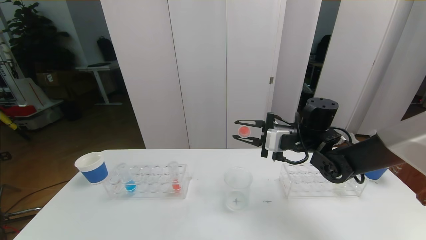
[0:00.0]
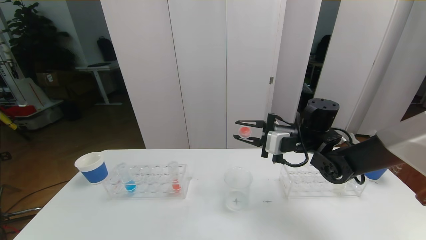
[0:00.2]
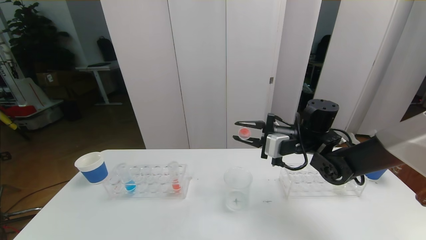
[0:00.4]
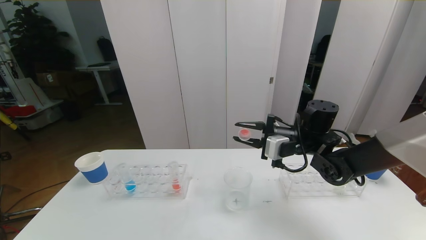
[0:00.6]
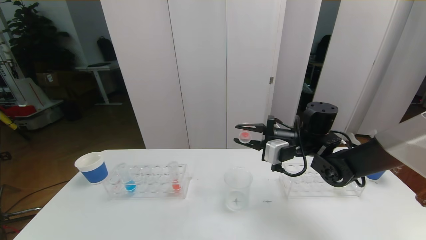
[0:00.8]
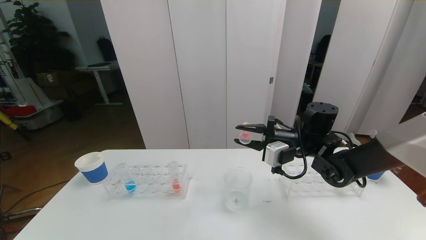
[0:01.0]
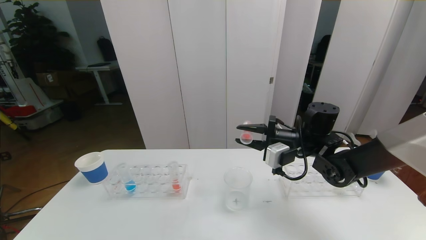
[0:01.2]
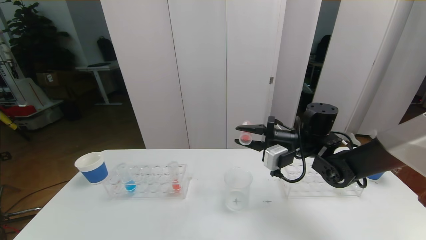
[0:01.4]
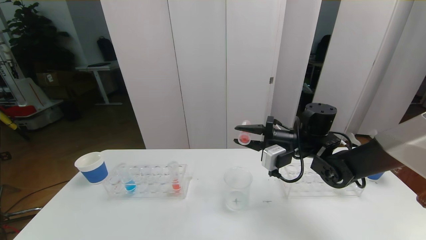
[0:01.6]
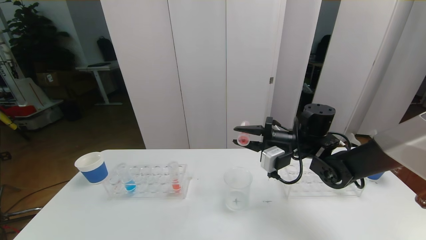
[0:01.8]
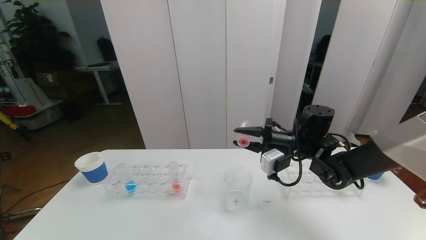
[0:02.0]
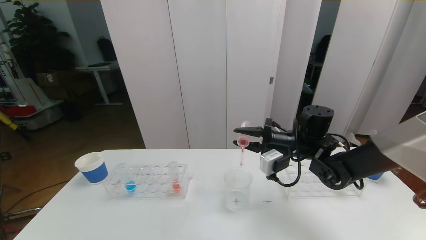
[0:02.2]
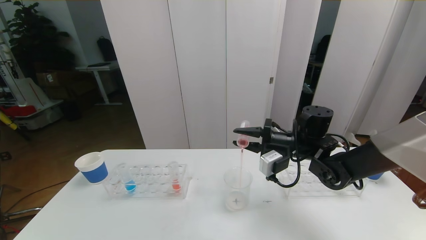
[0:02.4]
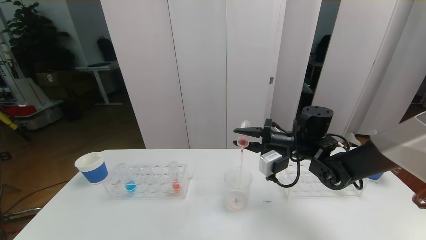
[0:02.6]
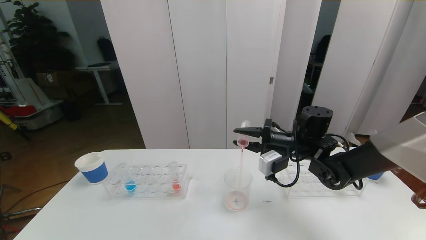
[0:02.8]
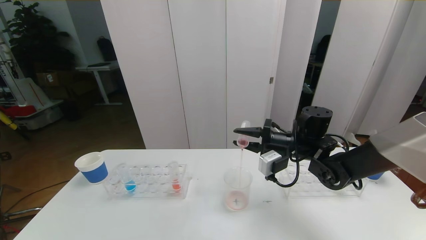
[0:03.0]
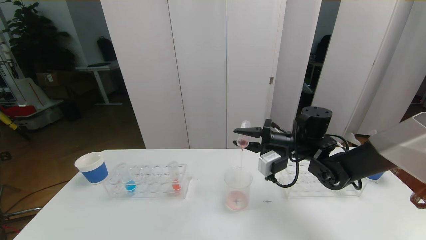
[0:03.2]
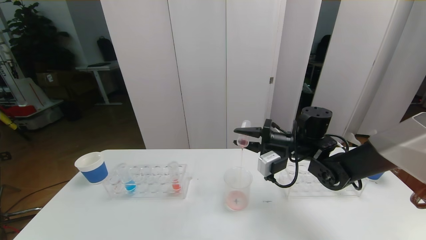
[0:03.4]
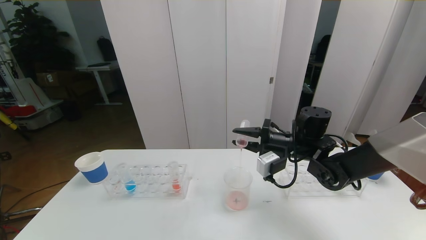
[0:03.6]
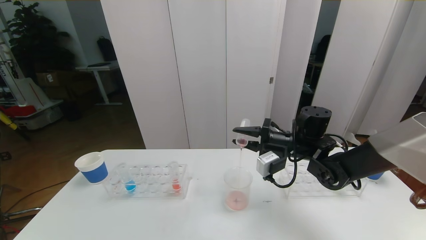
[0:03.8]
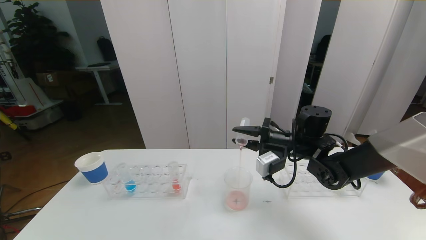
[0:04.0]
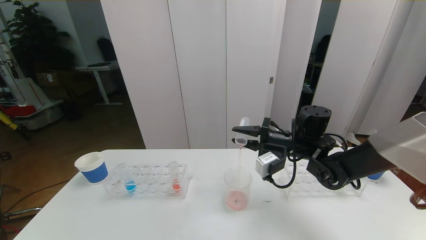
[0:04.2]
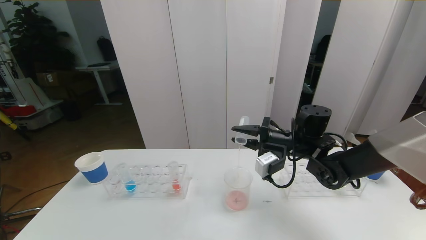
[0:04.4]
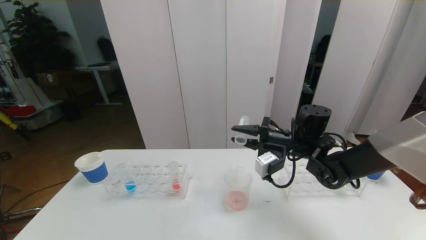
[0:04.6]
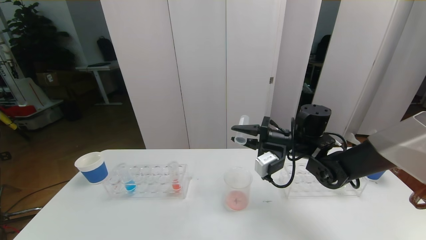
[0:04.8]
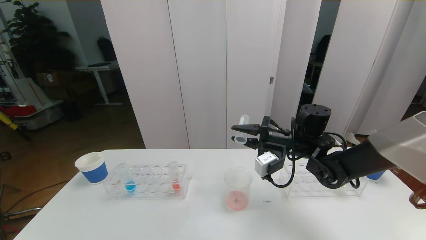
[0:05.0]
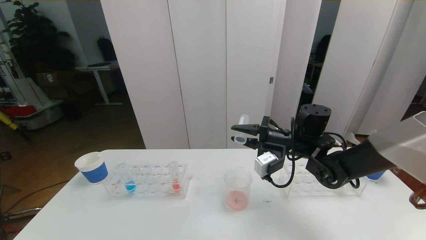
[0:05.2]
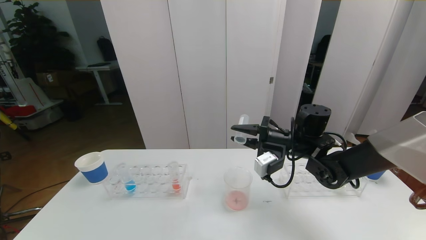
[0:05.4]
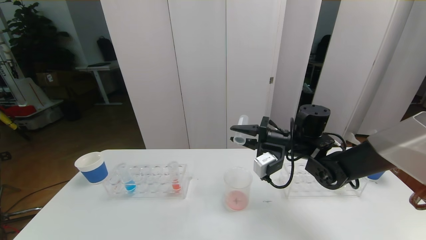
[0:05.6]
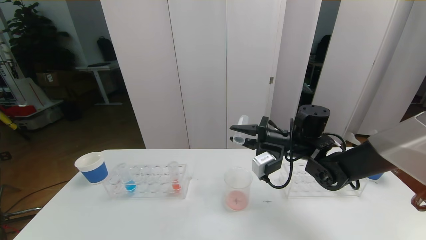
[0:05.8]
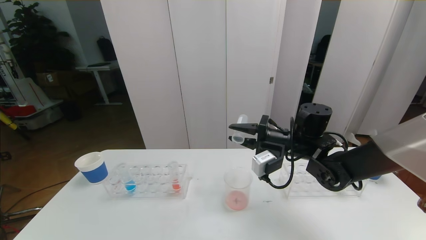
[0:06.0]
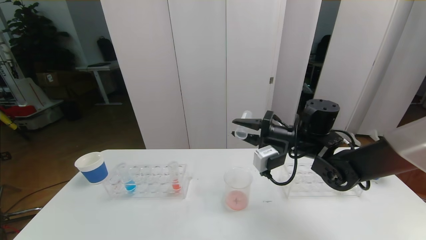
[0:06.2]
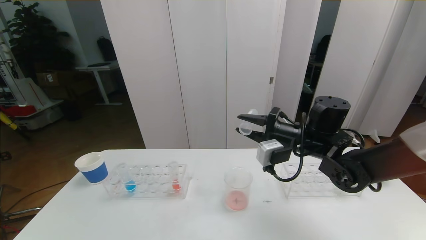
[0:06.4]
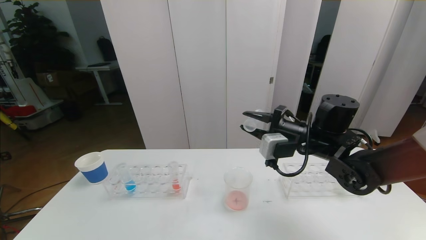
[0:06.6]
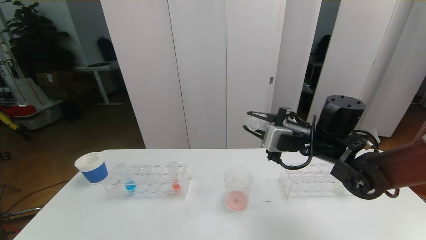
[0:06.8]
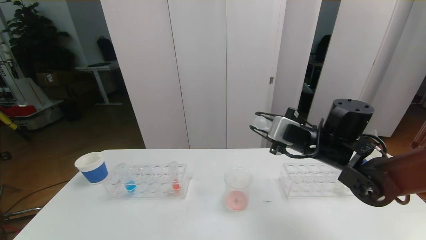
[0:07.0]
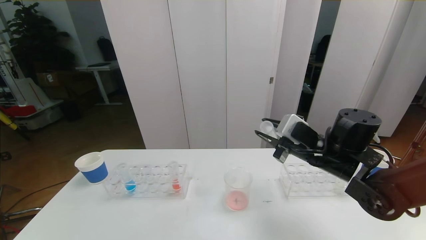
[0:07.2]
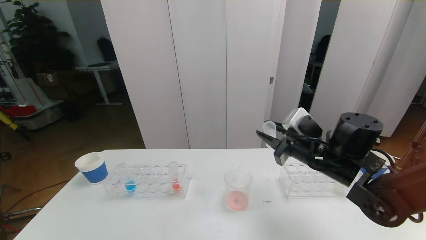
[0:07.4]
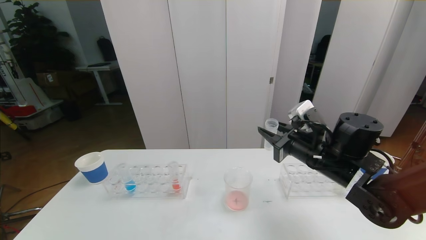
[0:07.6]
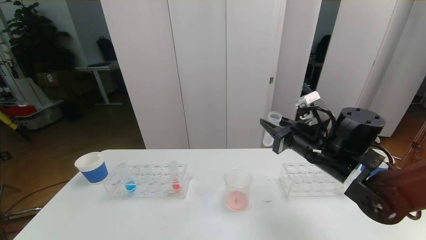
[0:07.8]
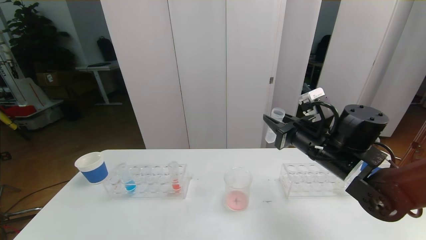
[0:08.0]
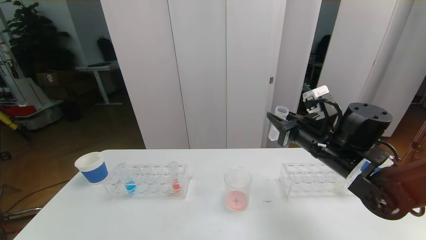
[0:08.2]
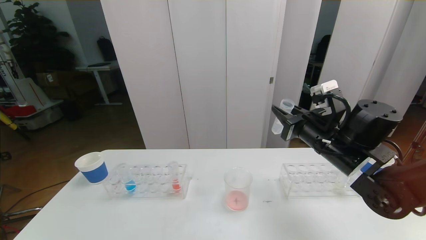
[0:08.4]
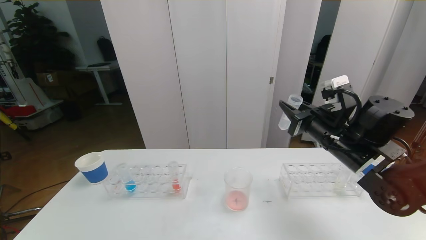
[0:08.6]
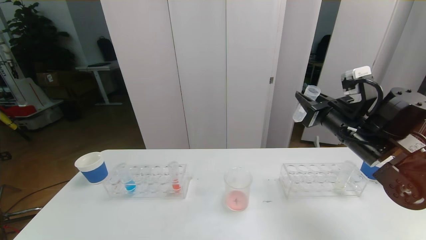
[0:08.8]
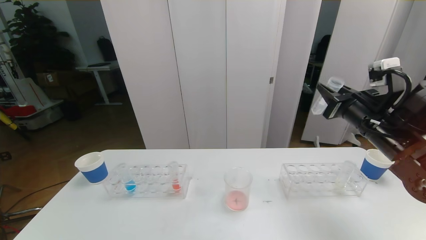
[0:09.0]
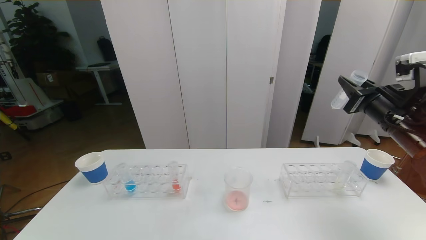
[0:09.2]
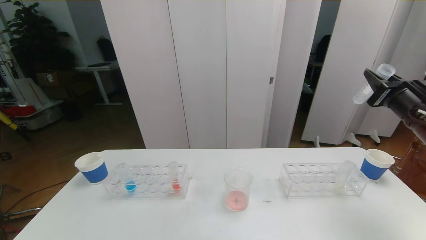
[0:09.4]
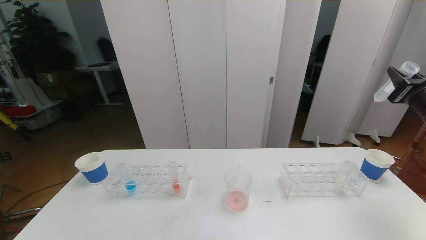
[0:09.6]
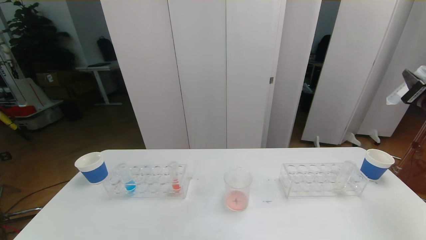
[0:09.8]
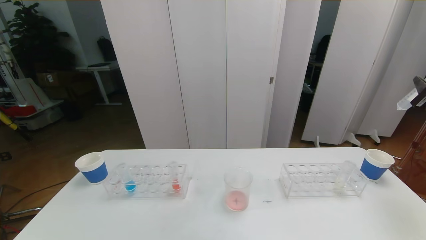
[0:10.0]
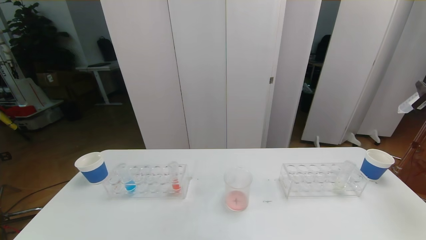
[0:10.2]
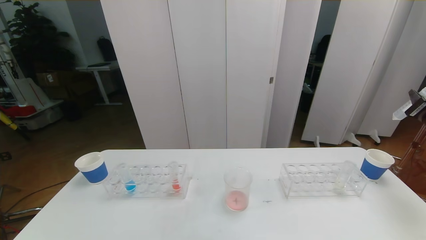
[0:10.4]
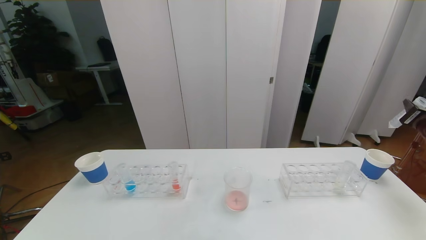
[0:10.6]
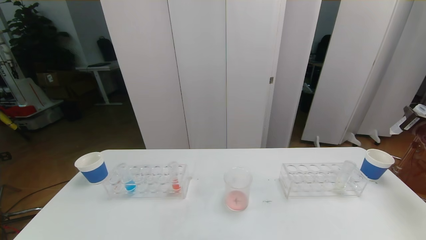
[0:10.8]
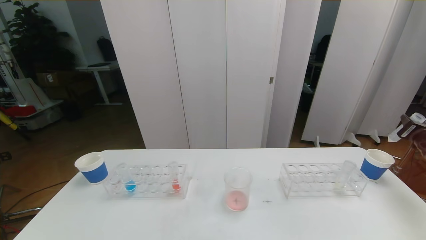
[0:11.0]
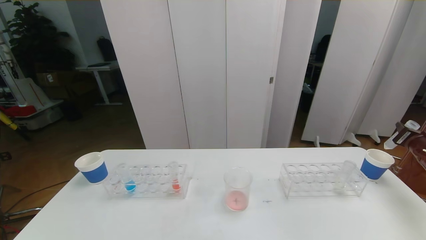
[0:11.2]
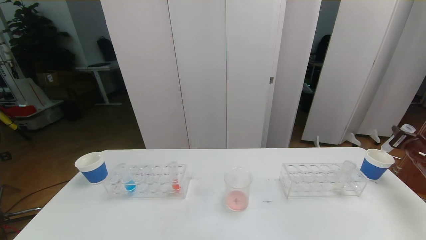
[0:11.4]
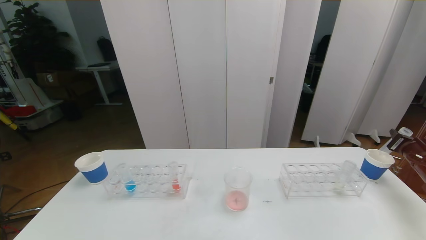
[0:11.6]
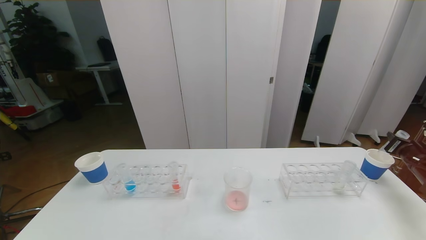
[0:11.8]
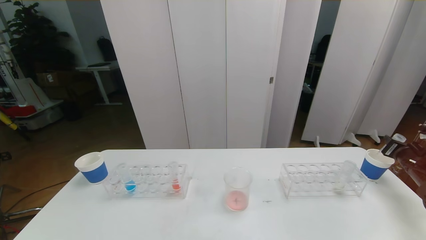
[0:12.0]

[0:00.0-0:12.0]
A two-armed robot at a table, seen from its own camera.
Task of the whole recording: pick up the test tube with red pigment the test tube with blue pigment and the test tube with white pigment by grippers and pour them into the beaker.
Step, 0:00.0 to 0:05.2: Pour the red reagent into the graduated cylinder with the right gripper.
0:00.0 to 0:01.6: There are only small adjustments of the grippers.
0:01.6 to 0:06.0: The grippers stay close to where they were, moving slightly.
0:06.0 to 0:07.6: The right gripper goes about 5 cm backward.
0:07.6 to 0:09.0: The right gripper is displaced to the right and upward by about 10 cm.
0:09.0 to 0:10.4: The right gripper moves to the right, some 20 cm.
0:10.4 to 0:12.0: The right gripper shifts roughly 10 cm downward.

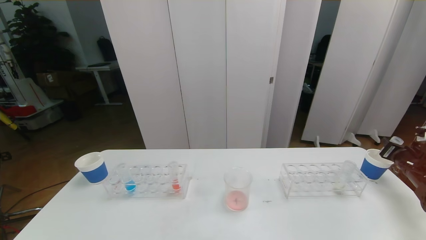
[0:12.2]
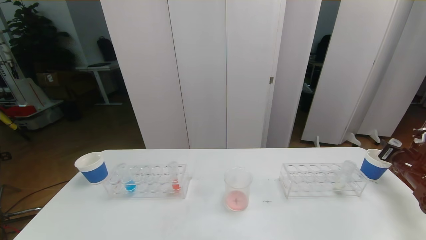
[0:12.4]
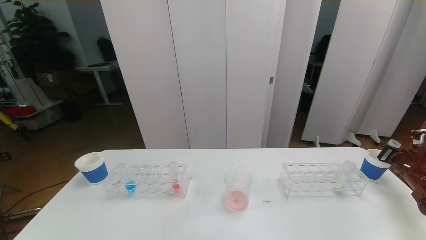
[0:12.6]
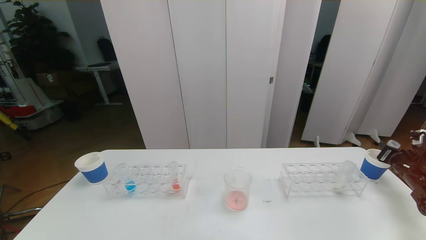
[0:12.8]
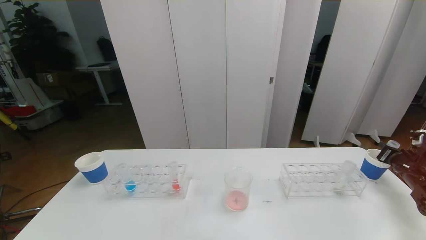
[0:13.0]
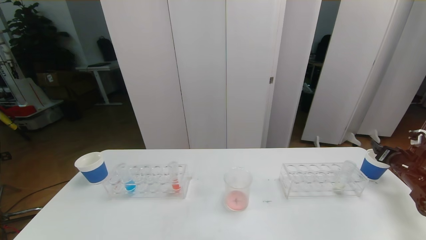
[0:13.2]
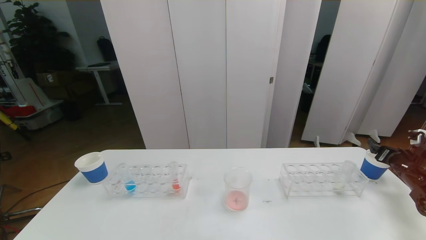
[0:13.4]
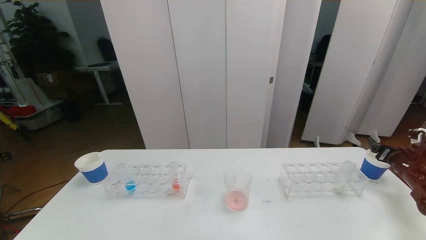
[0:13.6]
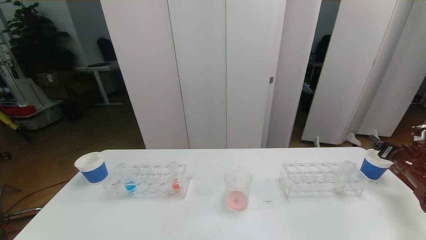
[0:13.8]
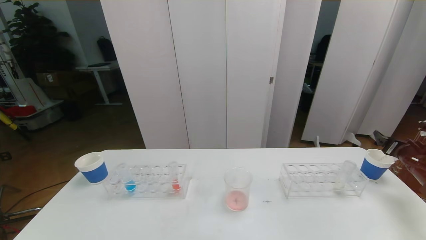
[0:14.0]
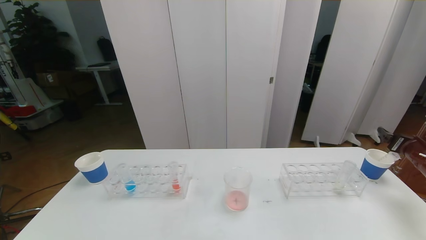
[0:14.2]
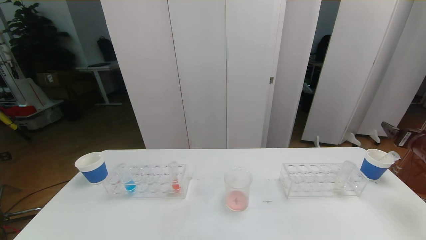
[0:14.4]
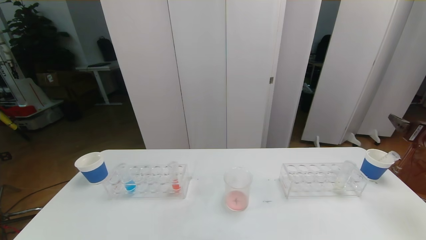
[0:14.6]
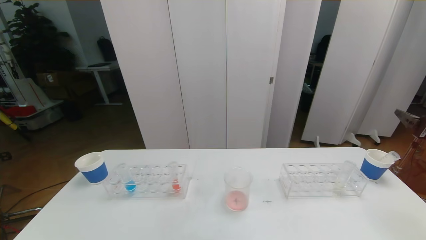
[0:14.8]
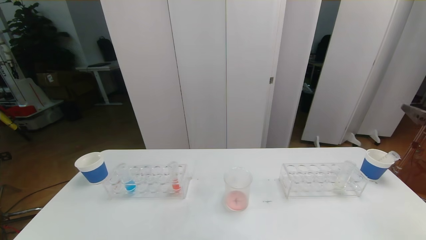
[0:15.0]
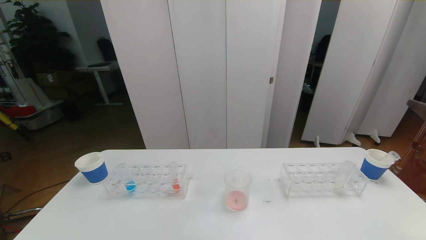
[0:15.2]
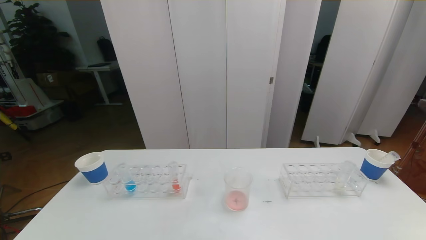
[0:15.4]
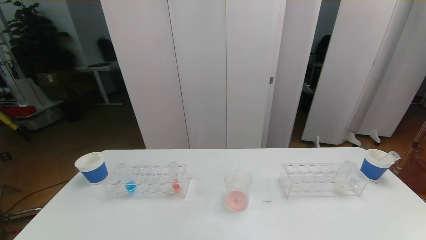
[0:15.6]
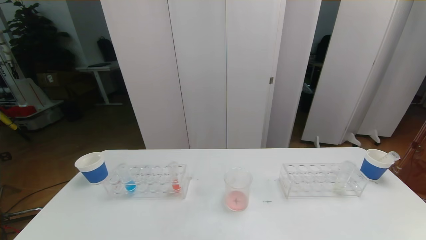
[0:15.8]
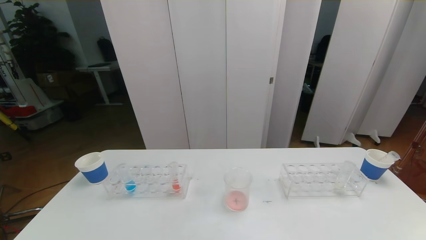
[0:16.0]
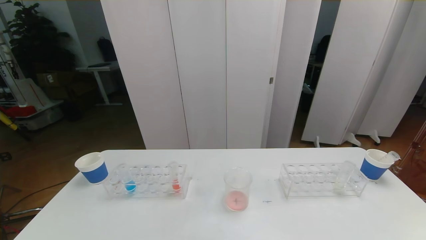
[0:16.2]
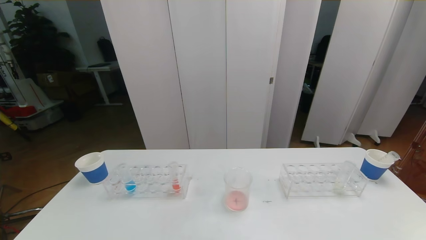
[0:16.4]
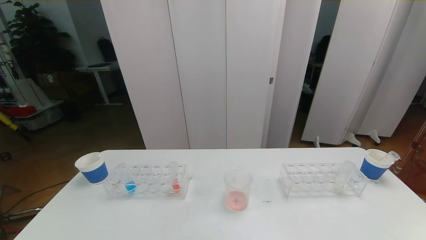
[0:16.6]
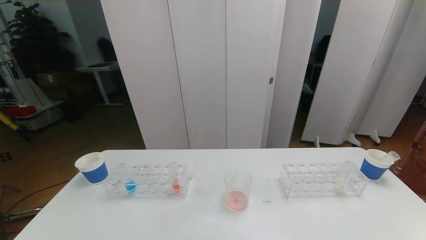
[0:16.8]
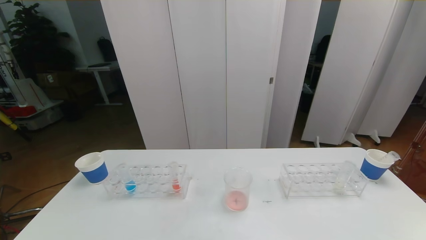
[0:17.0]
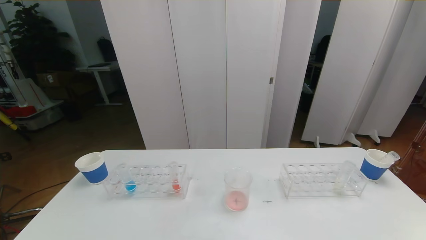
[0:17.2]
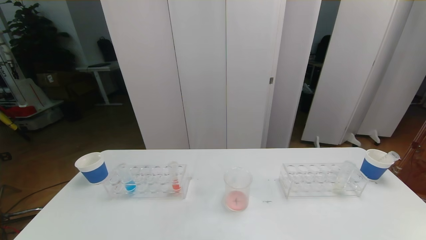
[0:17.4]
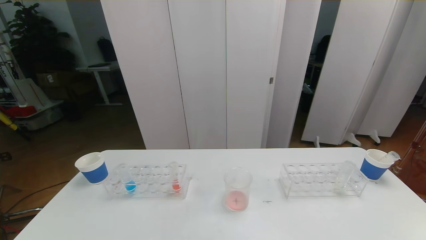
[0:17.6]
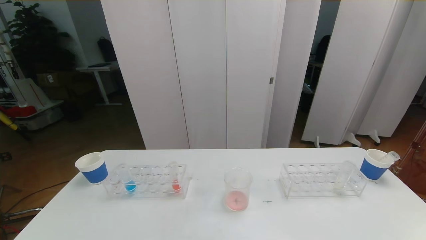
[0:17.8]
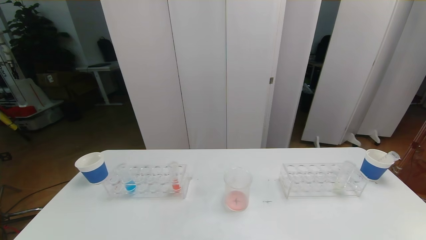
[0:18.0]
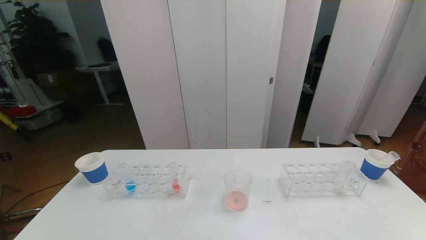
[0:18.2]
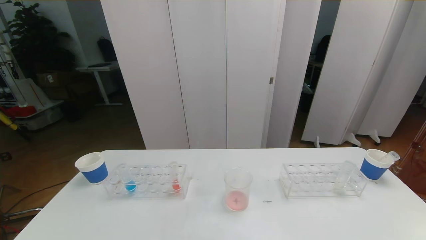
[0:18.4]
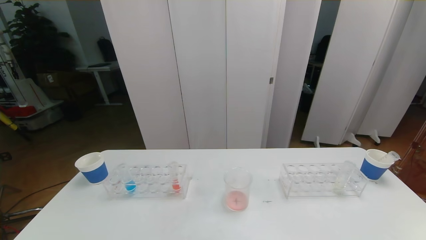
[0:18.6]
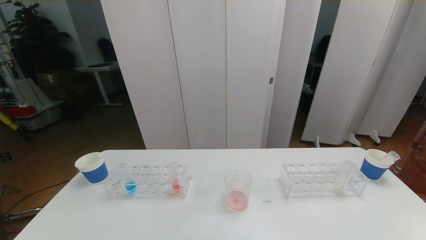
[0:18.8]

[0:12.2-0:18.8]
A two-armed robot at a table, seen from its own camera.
Task of the whole recording: pick up the test tube with red pigment the test tube with blue pigment and the test tube with white pigment by grippers and pour them into the beaker.
0:13.8 to 0:15.4: The right gripper heads upward, backward and to the left, covering approximately 30 cm.
